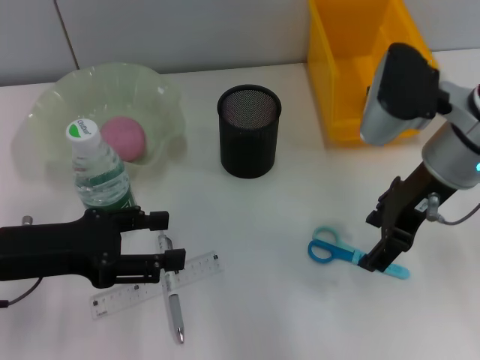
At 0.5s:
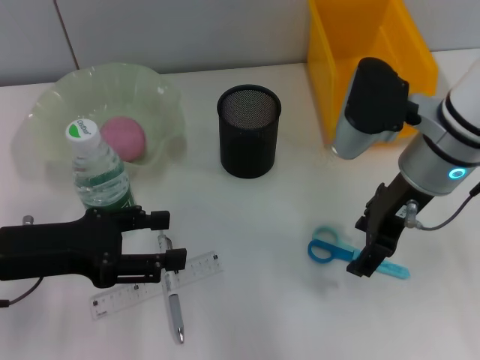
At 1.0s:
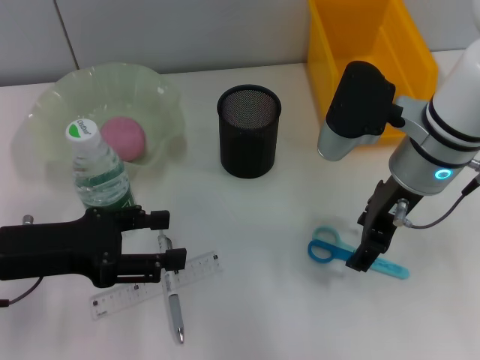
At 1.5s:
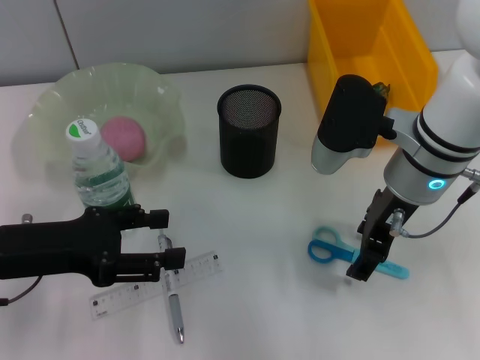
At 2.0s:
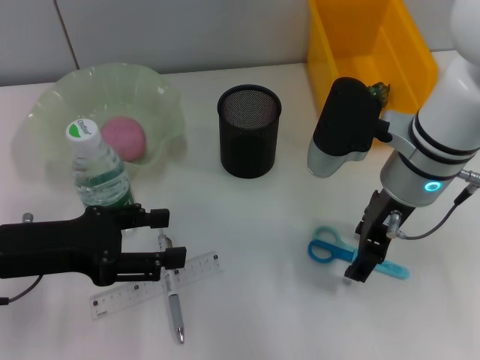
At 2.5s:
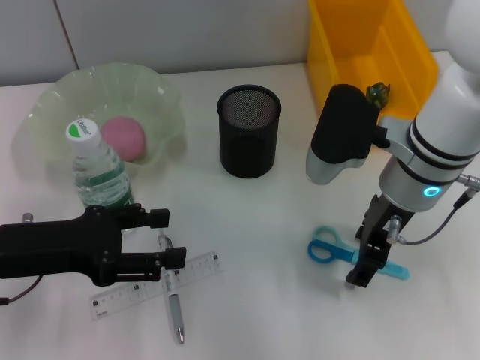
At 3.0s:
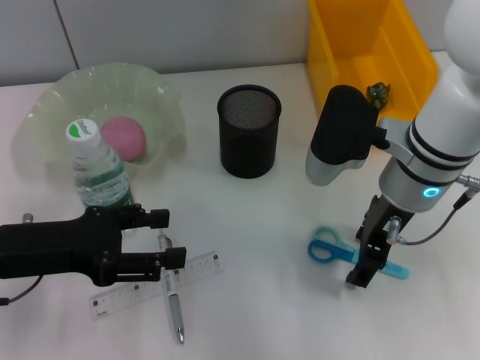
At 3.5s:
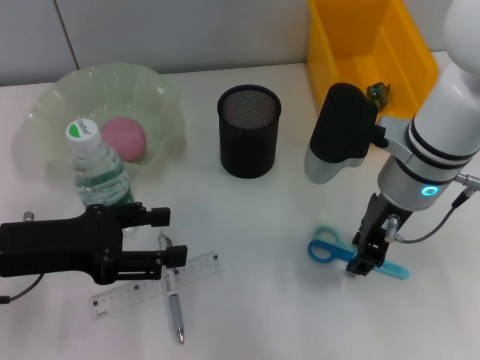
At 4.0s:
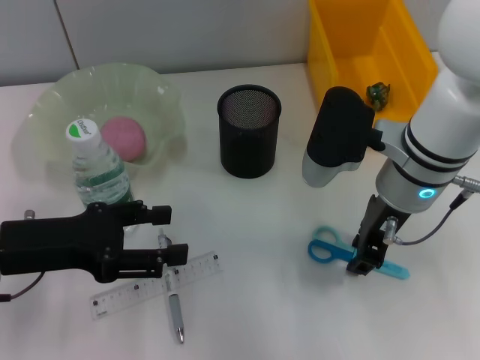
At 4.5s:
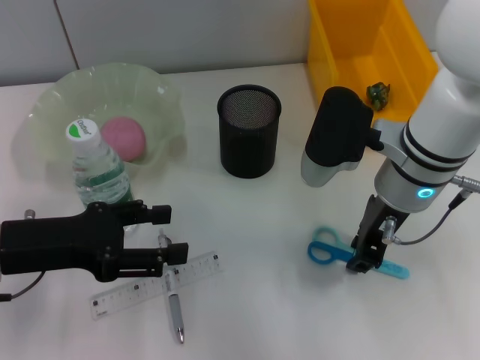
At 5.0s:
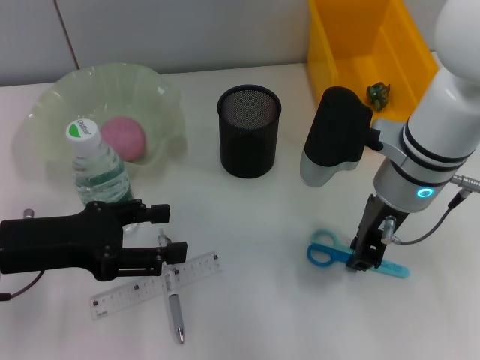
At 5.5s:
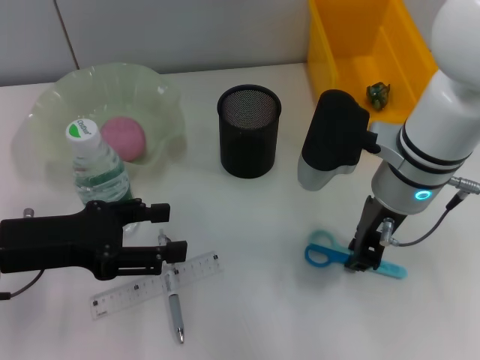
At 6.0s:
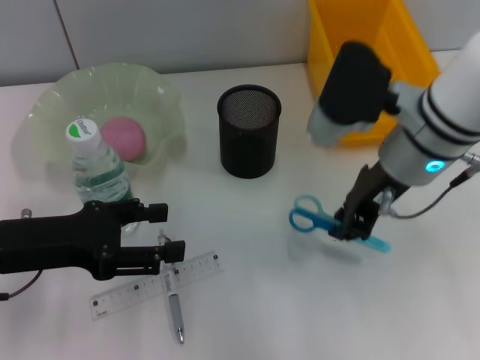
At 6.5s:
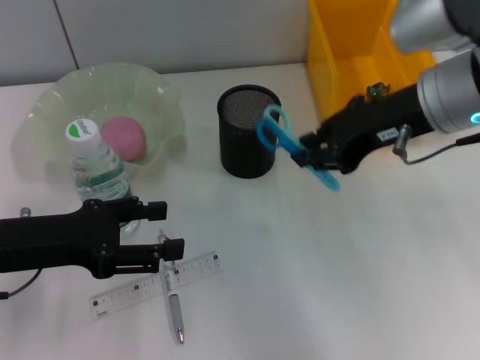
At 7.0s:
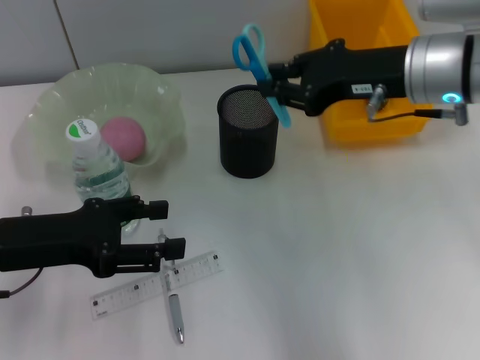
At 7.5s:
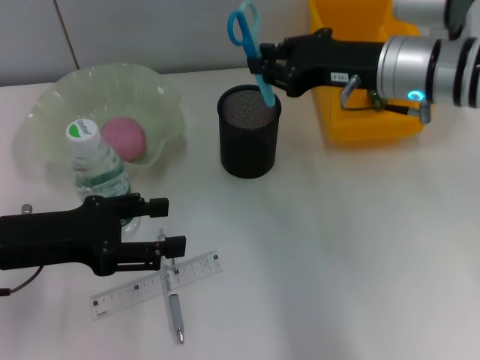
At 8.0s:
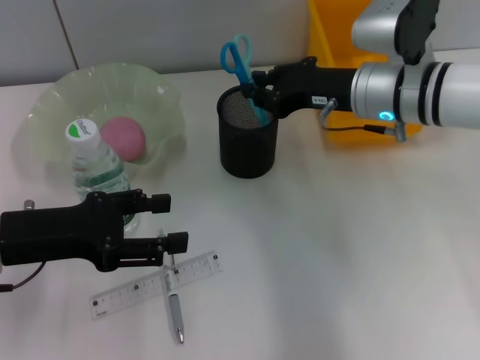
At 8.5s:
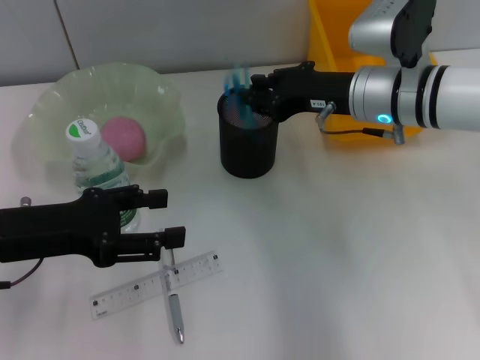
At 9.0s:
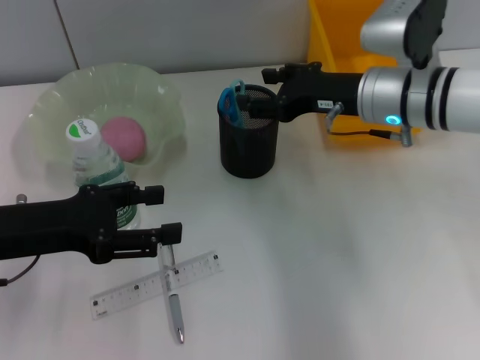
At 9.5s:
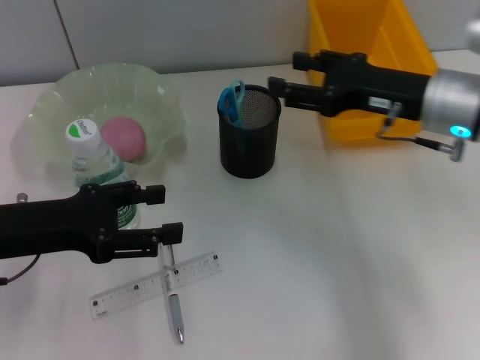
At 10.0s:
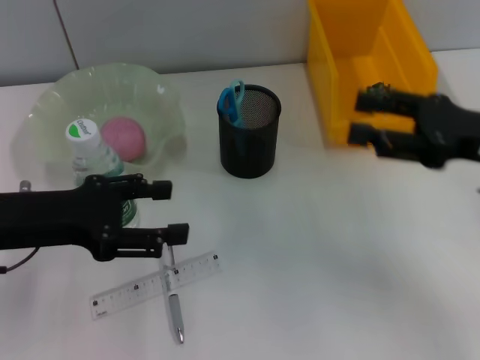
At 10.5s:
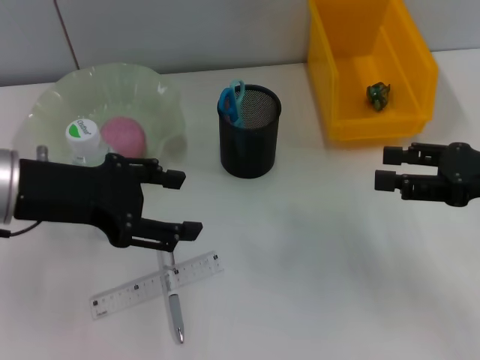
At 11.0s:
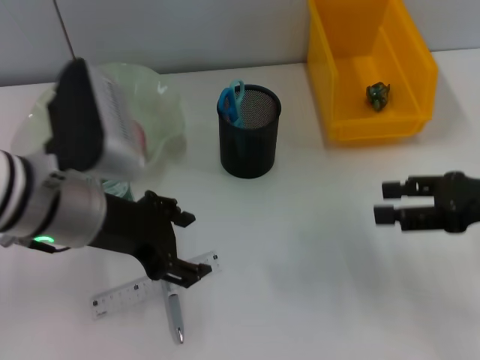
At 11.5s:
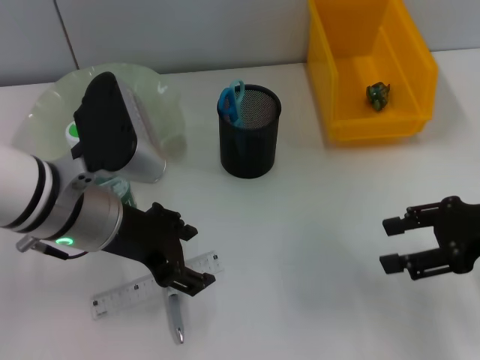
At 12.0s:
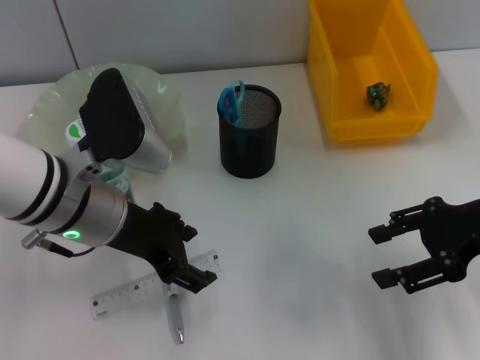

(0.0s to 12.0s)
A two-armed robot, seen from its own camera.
Step, 0.0s - 5.0s: Grab the blue scissors with the right hand.
Step, 5.5s - 8.5s: Place the blue scissors into the pen holder with the right hand.
0.0s - 2.0s: There are only small adjustments of the grippers.
2.0s - 4.0s: The right gripper closes up.
4.0s - 6.0s: The grippers stay close to where they were, moving slightly.
6.0s - 8.0s: The right gripper shifts some 5 cm forward.
8.0s - 10.0s: The right gripper goes about 15 cm to the right and backward, and opens up.
10.0s - 12.0s: The left gripper goes roughly 10 cm to the right.

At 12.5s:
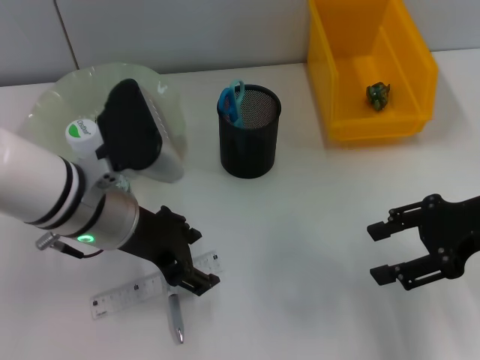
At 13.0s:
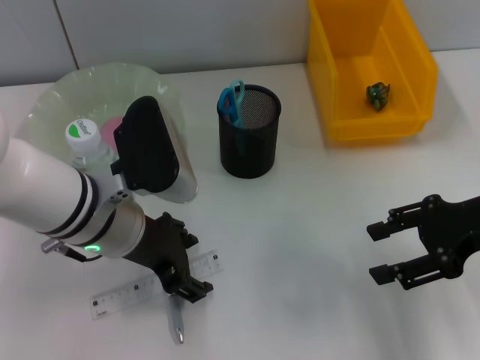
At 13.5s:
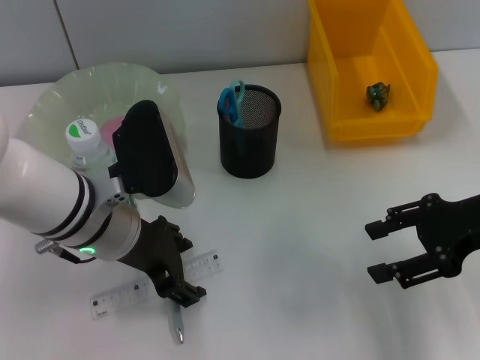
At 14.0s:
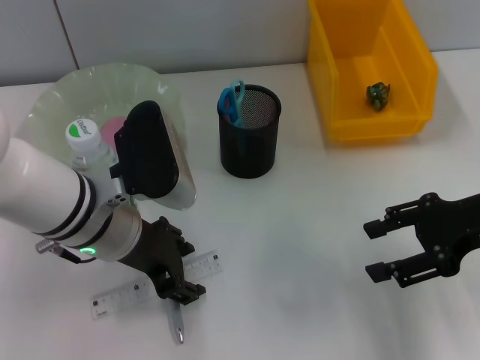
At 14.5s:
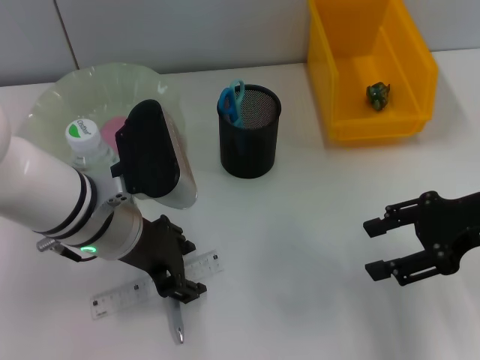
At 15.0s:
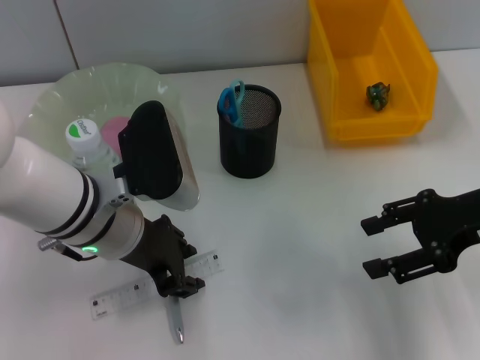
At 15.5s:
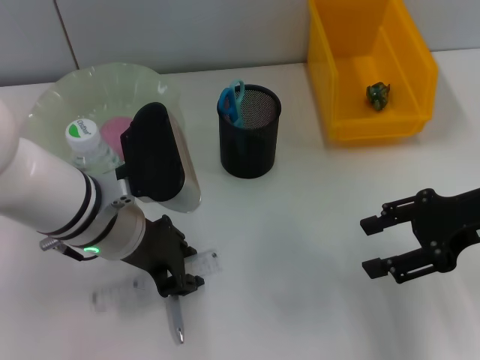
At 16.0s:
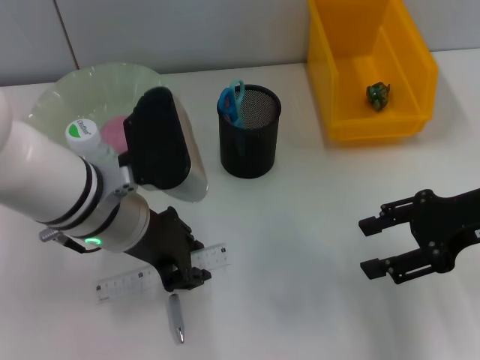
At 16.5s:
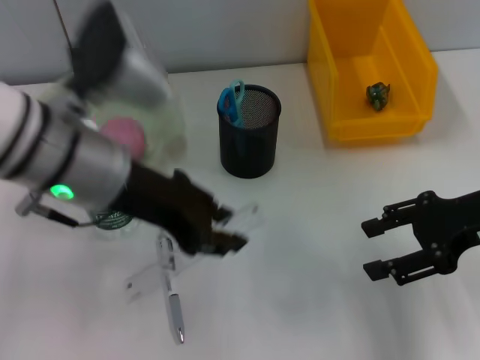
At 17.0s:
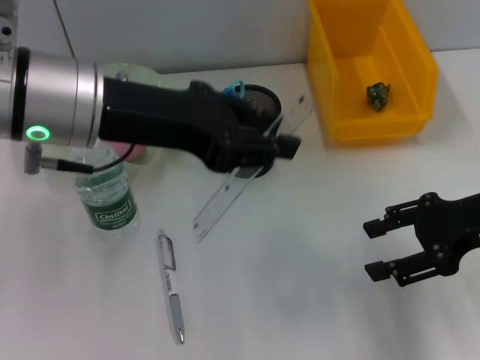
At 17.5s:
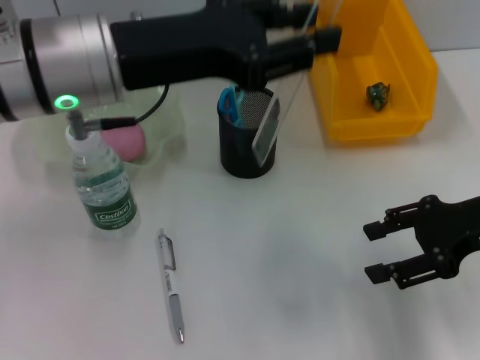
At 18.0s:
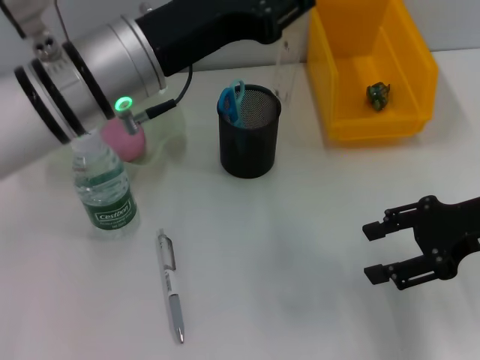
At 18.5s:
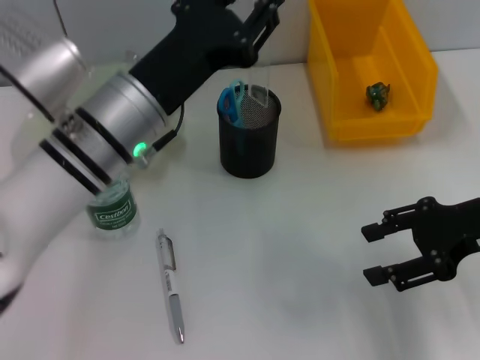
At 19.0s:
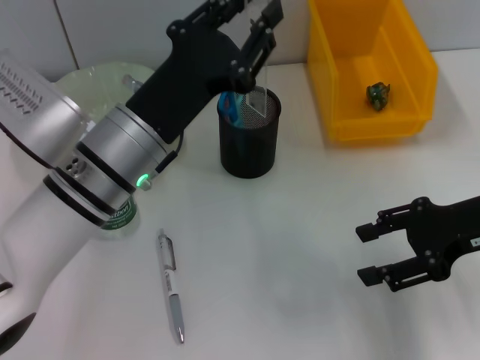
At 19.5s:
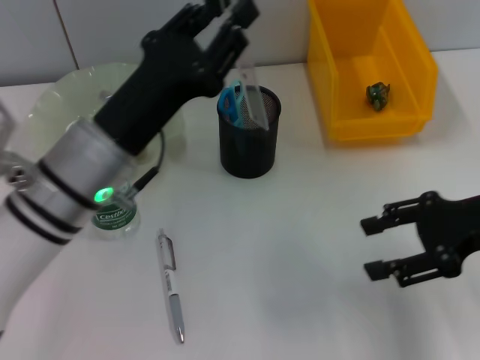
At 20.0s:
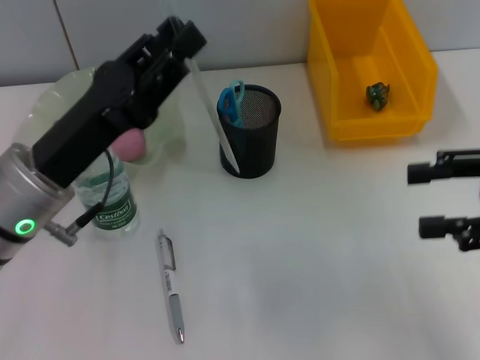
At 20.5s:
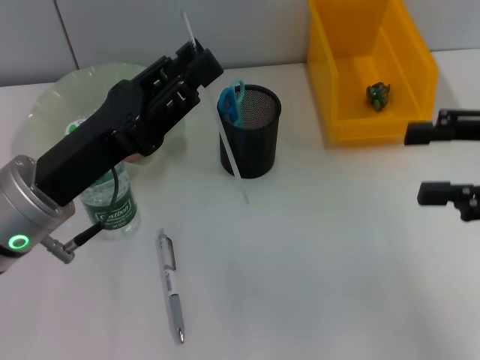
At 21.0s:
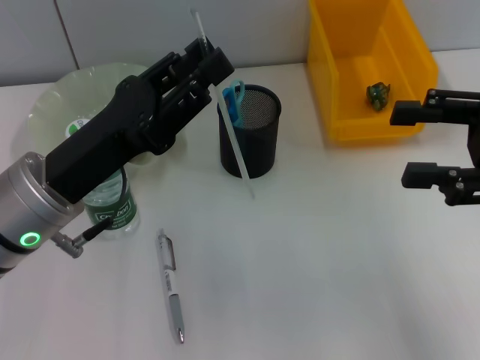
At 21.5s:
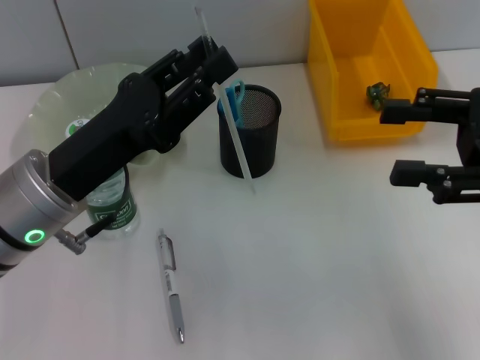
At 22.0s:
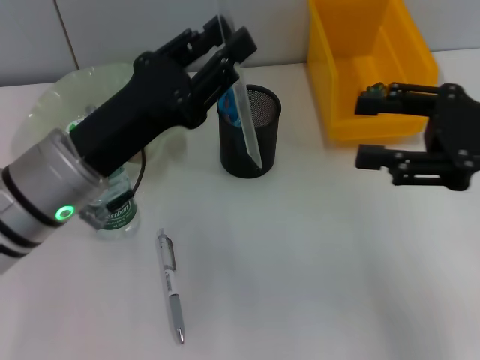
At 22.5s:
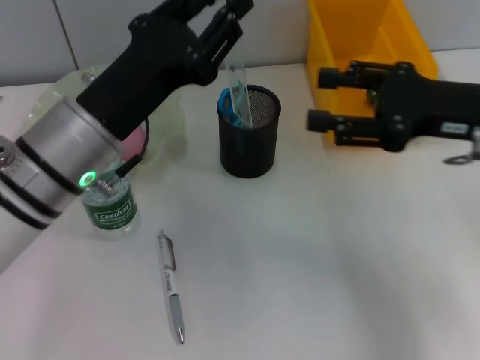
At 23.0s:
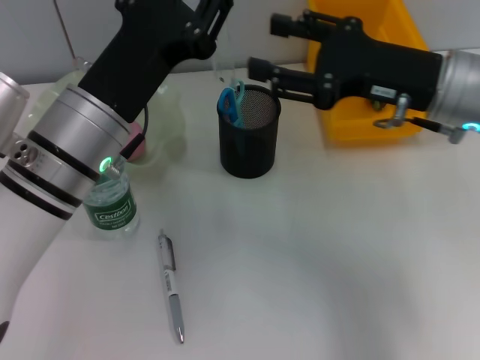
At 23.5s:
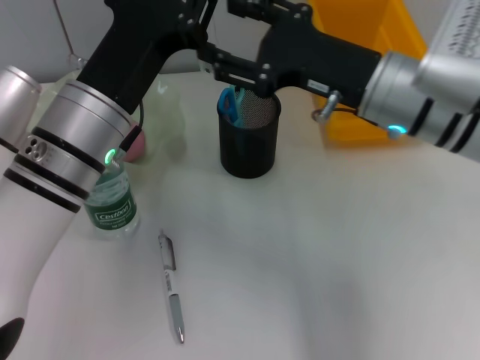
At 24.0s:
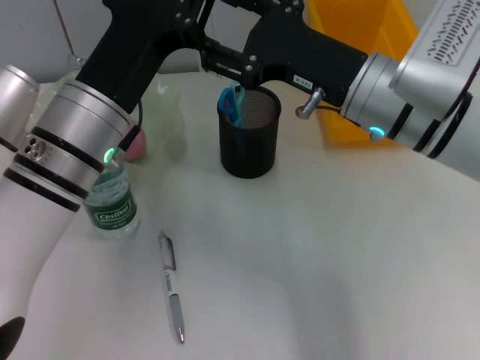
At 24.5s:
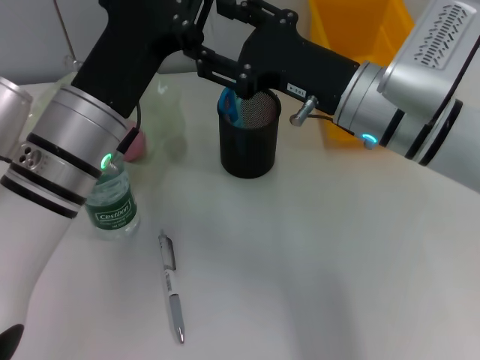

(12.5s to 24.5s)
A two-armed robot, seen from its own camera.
Step, 12.5s - 15.5s: Grab the ruler with the left hand.
12.5s - 14.5s: The grippers stay close to where they were, moving slightly.
14.5s - 16.5s: The left gripper is displaced upward by roughly 10 cm, and closes its fingers.
16.5s - 18.5s: The left gripper is displaced downward by some 5 cm.
18.5s - 20.5s: The left gripper travels to the left and backward by approximately 10 cm; the right gripper is displaced upward by approximately 5 cm.
20.5s - 22.5s: The right gripper heads to the left and forward, covering approximately 10 cm; the left gripper changes place by some 5 cm.
22.5s - 24.5s: The right gripper is displaced to the left by approximately 10 cm.

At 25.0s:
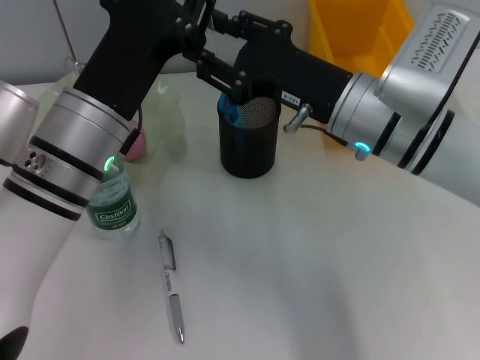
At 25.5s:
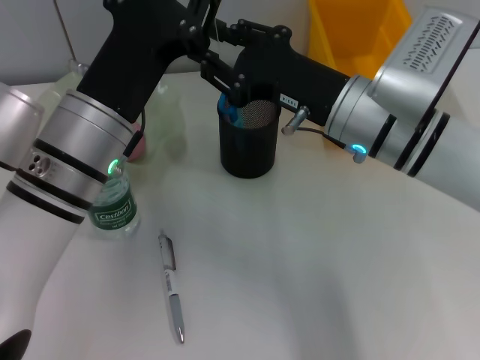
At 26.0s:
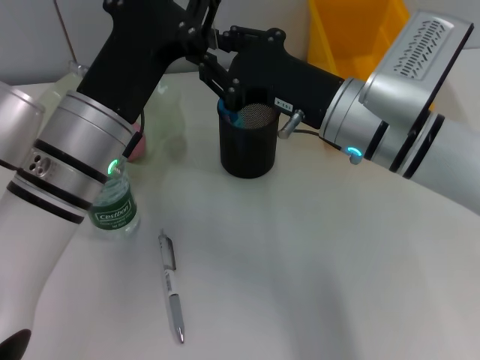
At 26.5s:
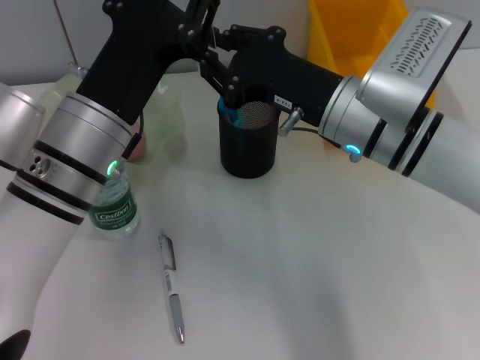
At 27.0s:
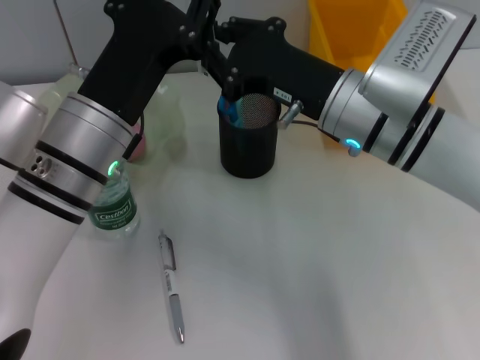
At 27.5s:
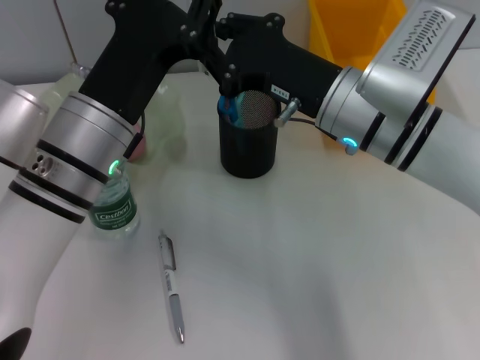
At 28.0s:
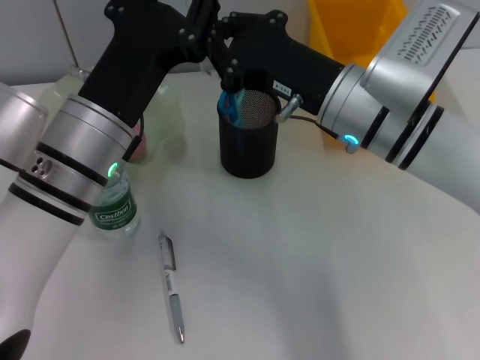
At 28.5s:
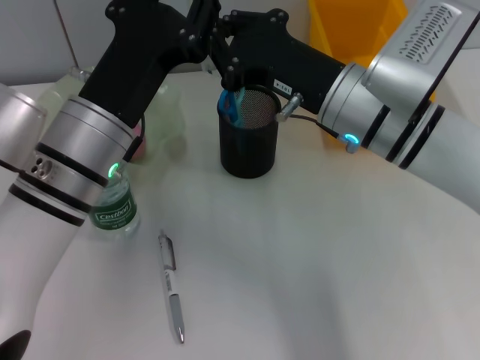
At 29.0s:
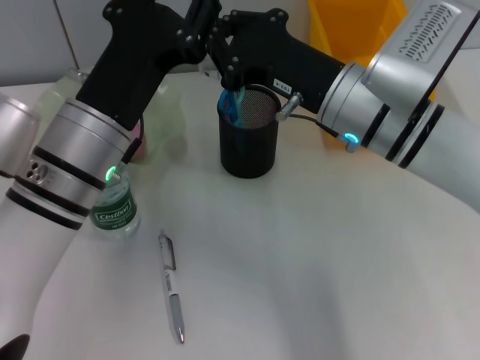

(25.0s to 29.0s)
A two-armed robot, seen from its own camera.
Step, 25.0s - 28.5s: Pass the ruler from the left hand to the right hand.
25.0s - 27.0s: The right gripper closes its fingers.
27.0s - 29.0s: Both grippers stay put.
